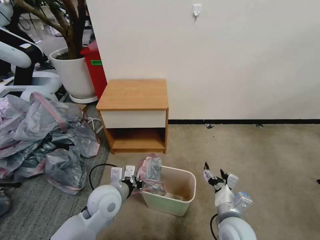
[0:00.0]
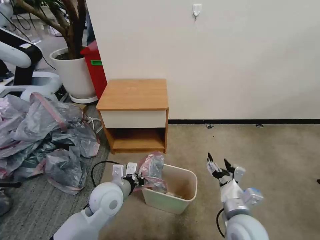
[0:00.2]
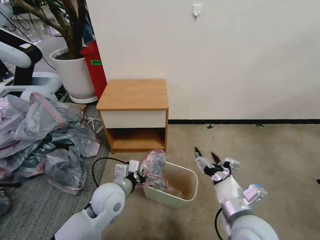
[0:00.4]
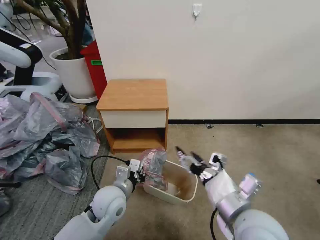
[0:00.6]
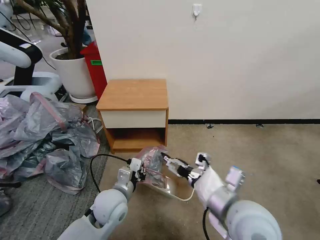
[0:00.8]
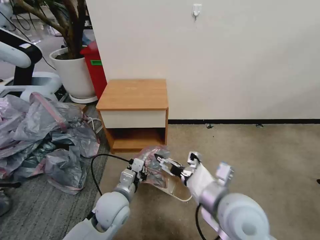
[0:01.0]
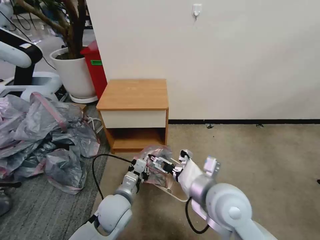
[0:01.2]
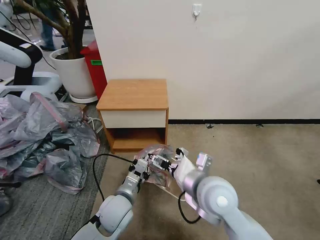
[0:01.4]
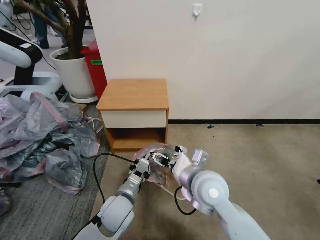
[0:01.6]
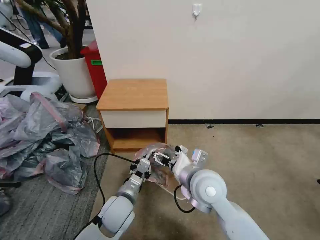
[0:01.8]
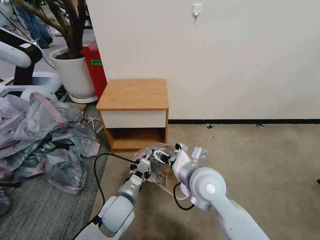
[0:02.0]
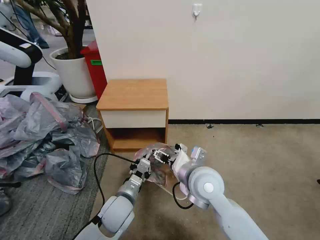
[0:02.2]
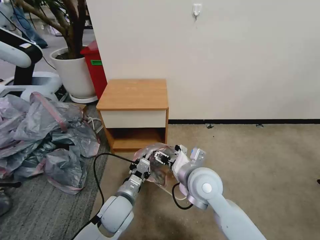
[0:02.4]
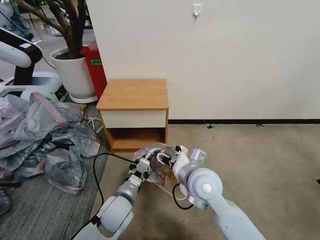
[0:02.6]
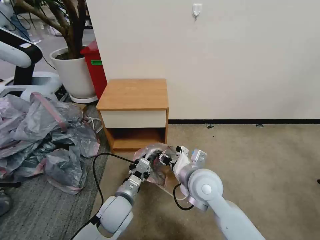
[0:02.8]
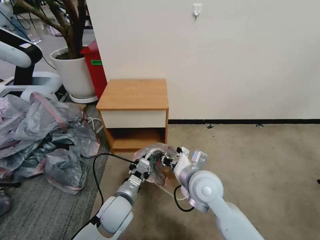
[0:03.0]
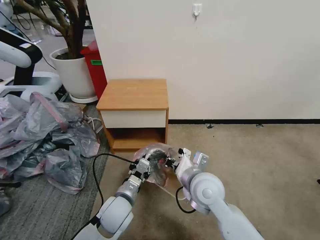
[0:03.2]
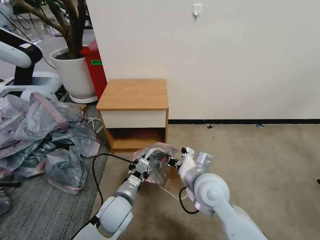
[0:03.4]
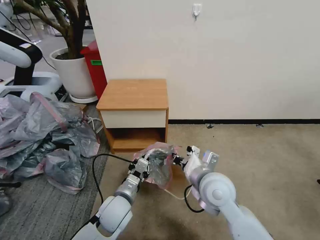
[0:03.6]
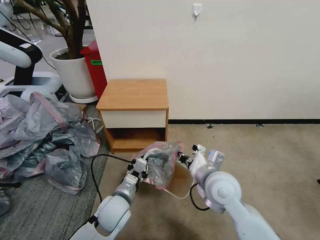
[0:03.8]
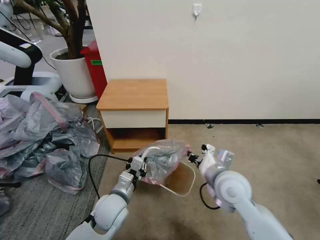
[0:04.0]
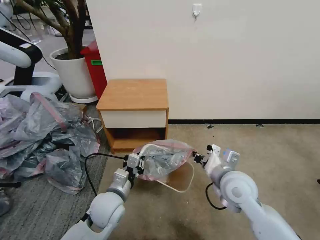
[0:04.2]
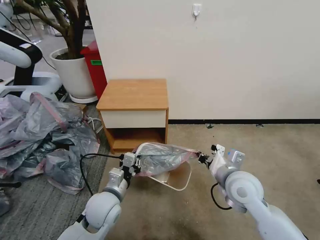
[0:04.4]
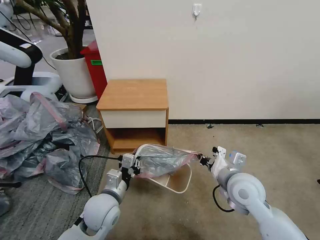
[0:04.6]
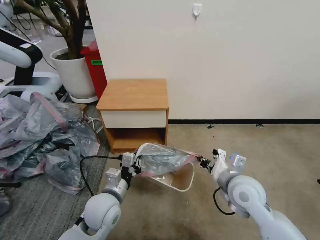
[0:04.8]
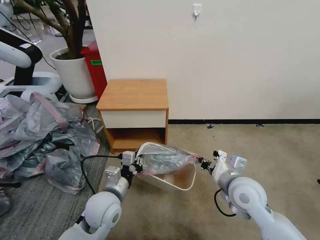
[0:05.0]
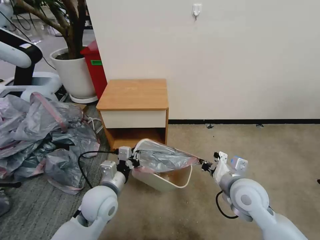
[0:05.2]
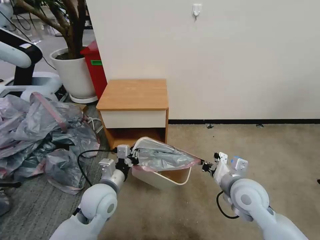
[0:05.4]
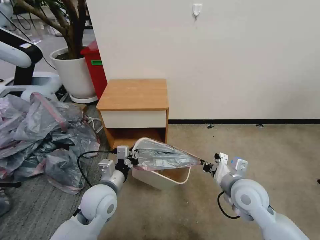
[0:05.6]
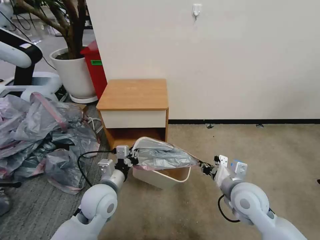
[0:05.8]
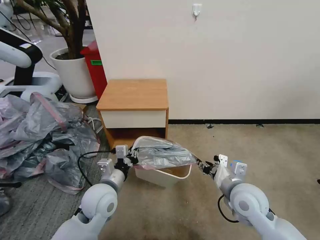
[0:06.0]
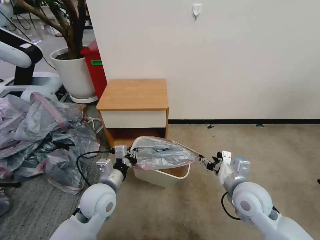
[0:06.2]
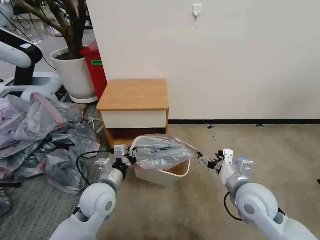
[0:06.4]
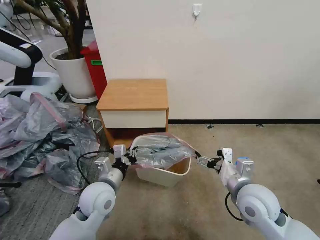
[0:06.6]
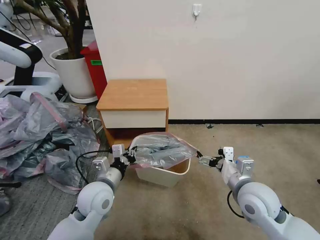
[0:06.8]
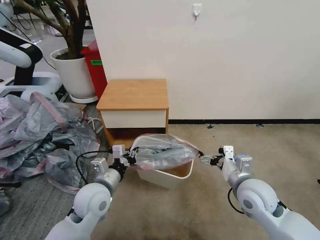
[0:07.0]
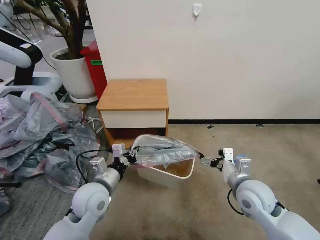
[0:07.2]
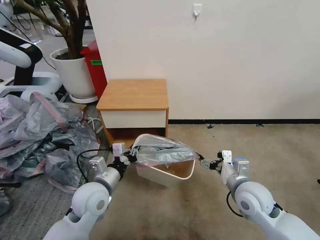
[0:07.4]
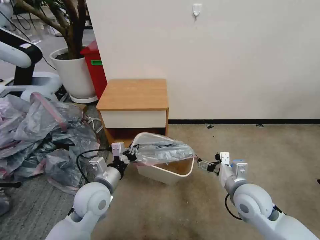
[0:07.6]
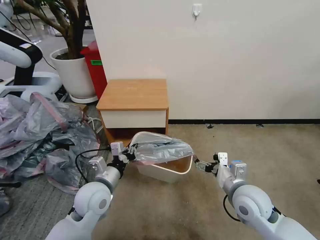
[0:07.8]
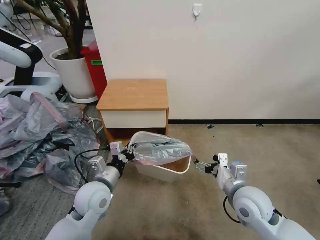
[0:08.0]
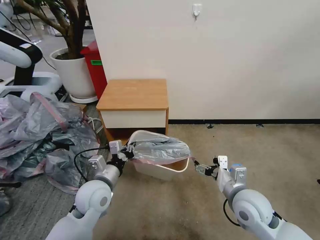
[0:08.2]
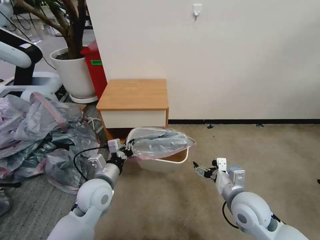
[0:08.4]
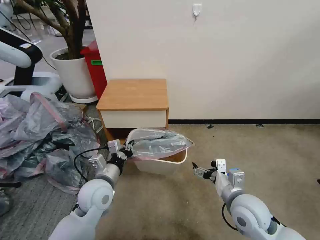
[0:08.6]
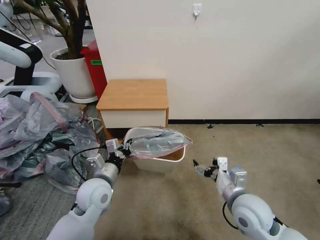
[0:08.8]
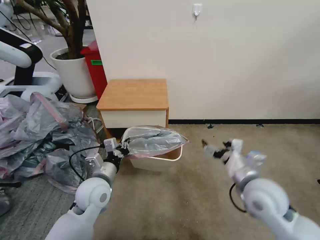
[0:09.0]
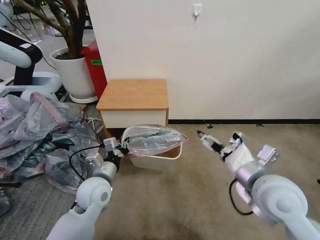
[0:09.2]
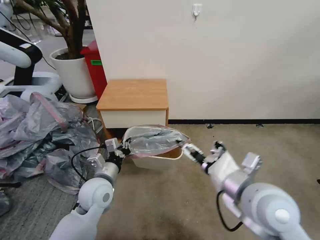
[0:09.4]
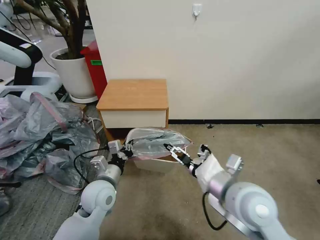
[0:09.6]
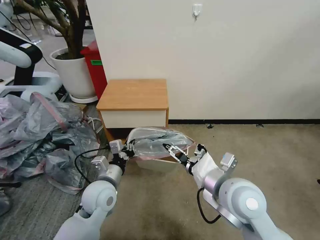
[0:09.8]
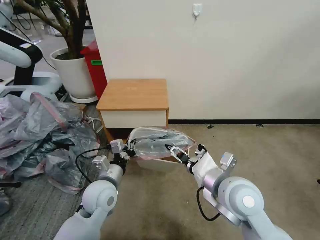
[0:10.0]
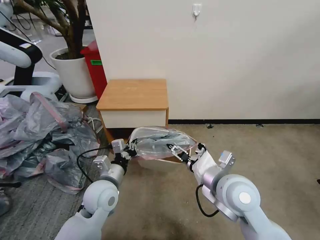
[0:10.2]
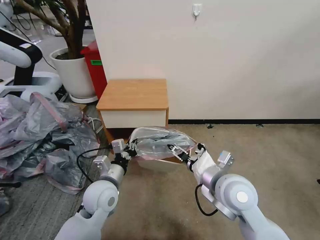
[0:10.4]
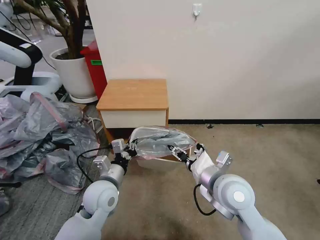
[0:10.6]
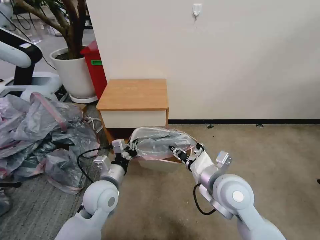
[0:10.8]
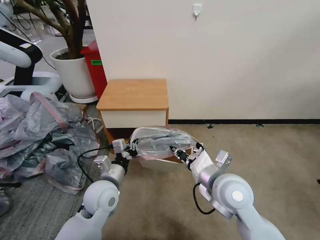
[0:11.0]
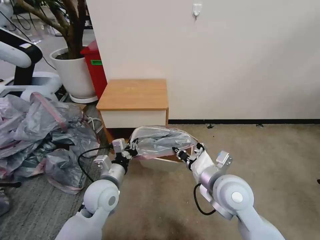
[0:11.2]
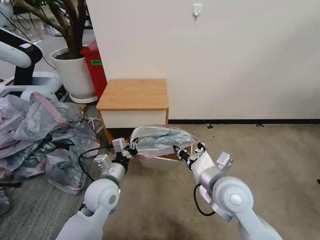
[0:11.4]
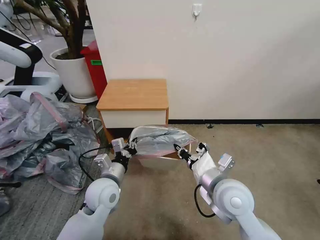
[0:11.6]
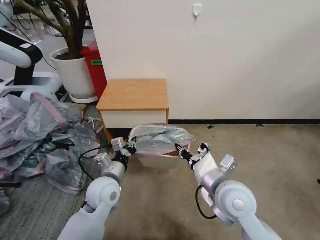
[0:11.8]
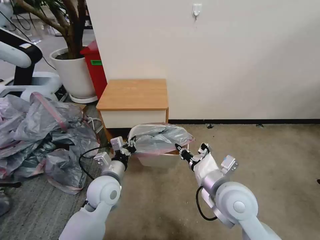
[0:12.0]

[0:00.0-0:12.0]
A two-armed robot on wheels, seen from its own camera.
Task of the whole recording: Pick up the garbage bag from the table and place it over the trash can.
0:00.0 to 0:01.6: The left gripper ends up approximately 5 cm from where it was. Meanwhile the right gripper goes roughly 20 cm upward, to the left and forward.
0:01.6 to 0:03.0: The right gripper closes up.
0:03.0 to 0:04.4: The right gripper heads to the right, covering about 10 cm.
0:04.4 to 0:06.0: The right gripper opens its fingers.
0:06.0 to 0:07.6: The right gripper opens its fingers.
0:07.6 to 0:09.0: The right gripper is displaced upward by some 5 cm.
0:09.0 to 0:10.4: The right gripper heads to the left, covering about 10 cm.
0:10.4 to 0:12.0: The right gripper closes.

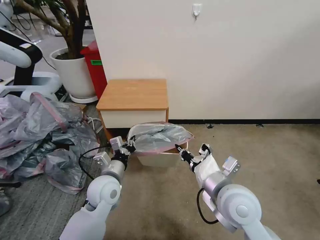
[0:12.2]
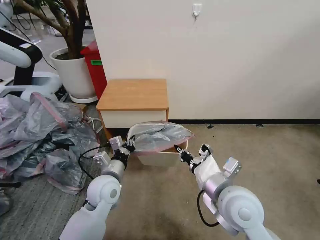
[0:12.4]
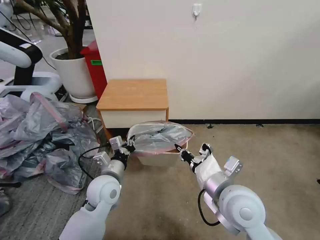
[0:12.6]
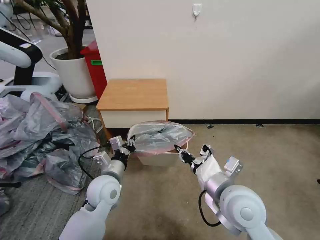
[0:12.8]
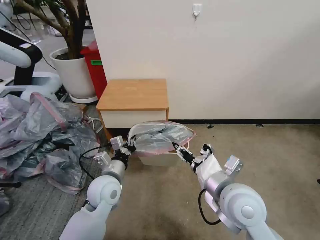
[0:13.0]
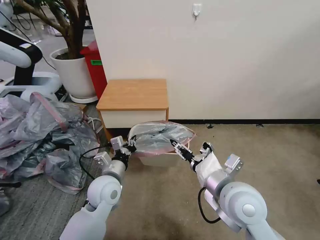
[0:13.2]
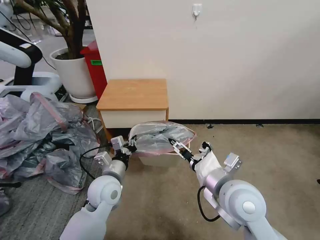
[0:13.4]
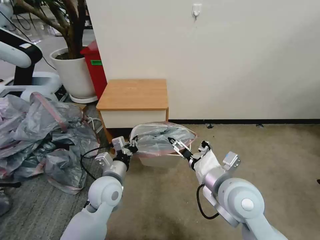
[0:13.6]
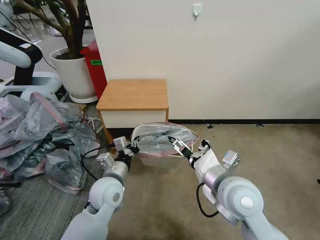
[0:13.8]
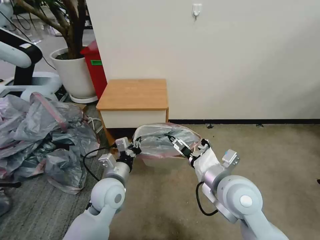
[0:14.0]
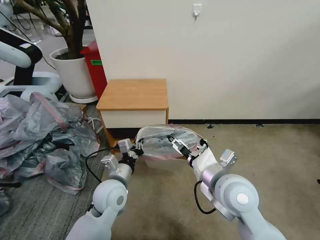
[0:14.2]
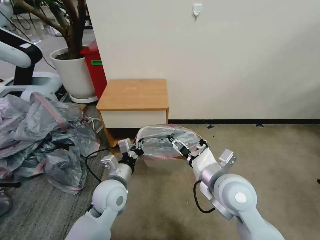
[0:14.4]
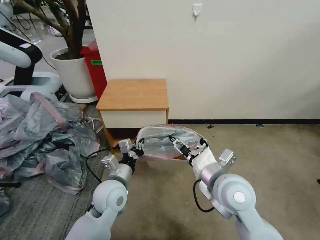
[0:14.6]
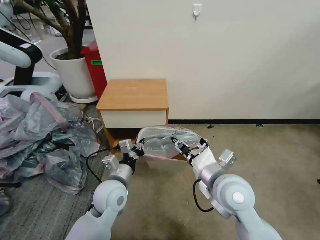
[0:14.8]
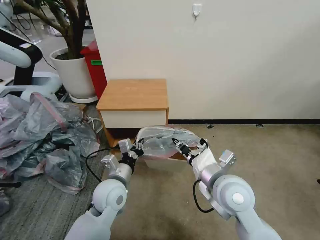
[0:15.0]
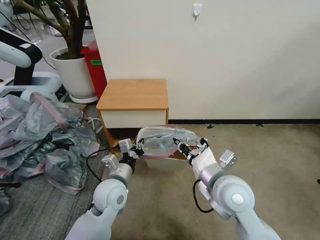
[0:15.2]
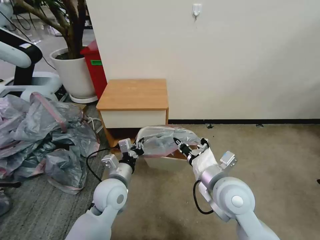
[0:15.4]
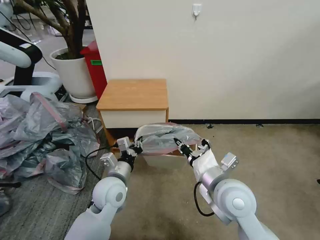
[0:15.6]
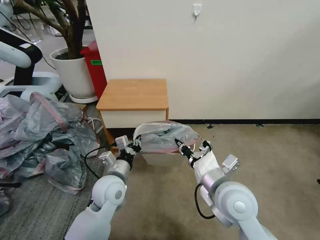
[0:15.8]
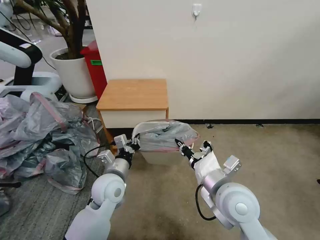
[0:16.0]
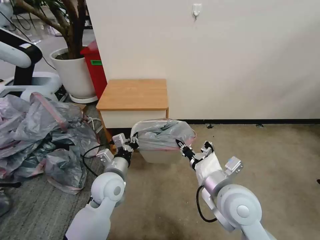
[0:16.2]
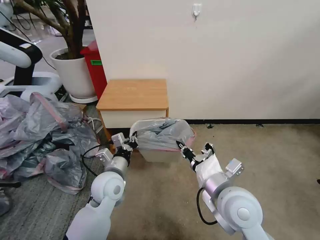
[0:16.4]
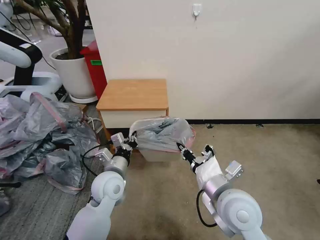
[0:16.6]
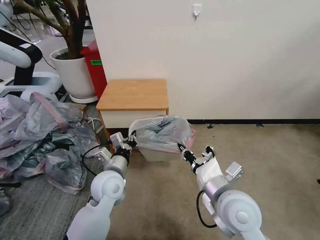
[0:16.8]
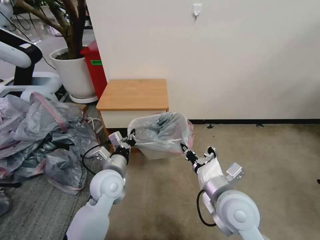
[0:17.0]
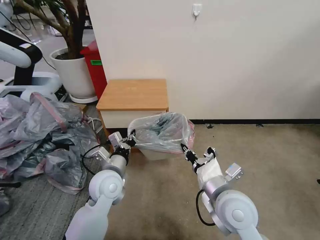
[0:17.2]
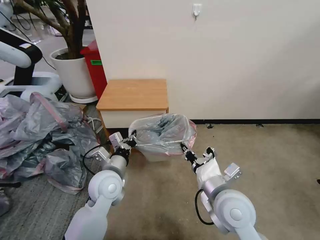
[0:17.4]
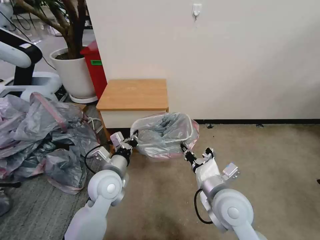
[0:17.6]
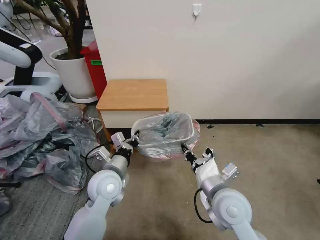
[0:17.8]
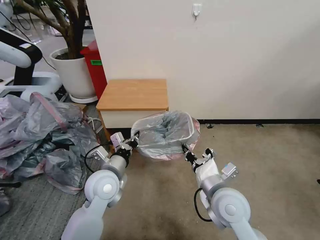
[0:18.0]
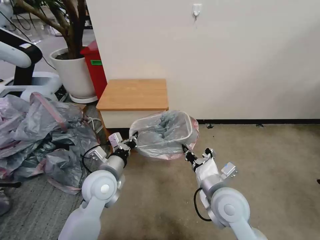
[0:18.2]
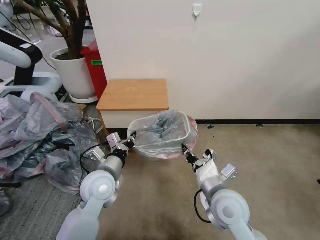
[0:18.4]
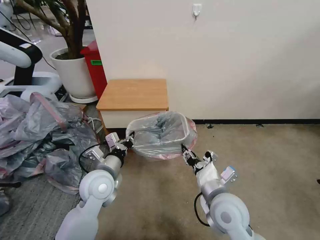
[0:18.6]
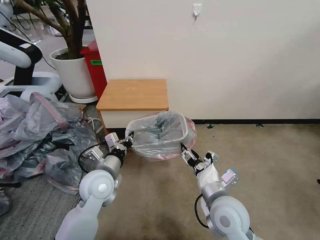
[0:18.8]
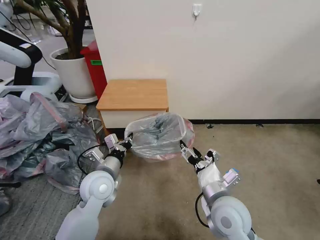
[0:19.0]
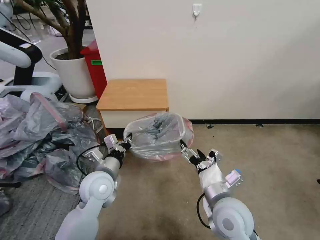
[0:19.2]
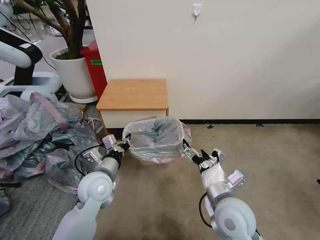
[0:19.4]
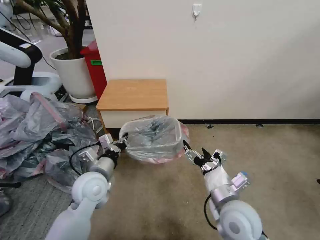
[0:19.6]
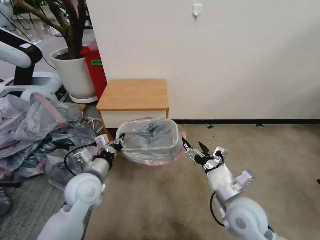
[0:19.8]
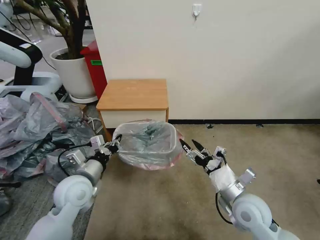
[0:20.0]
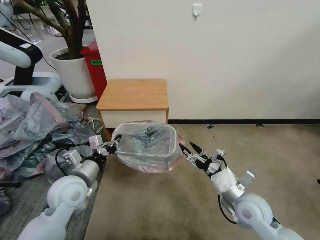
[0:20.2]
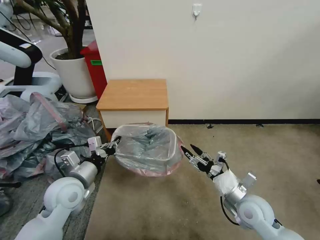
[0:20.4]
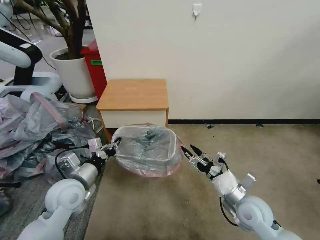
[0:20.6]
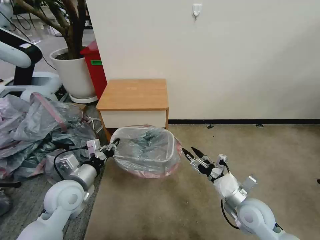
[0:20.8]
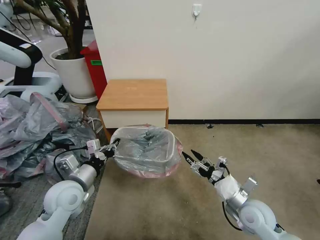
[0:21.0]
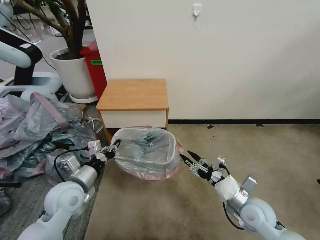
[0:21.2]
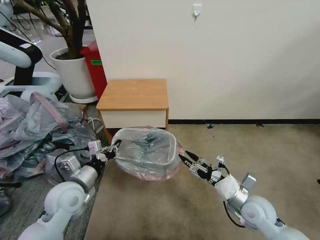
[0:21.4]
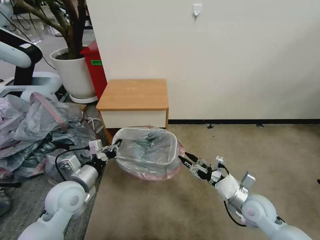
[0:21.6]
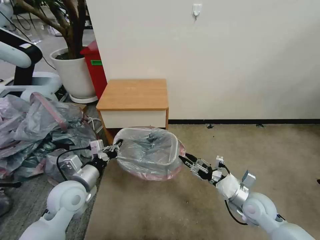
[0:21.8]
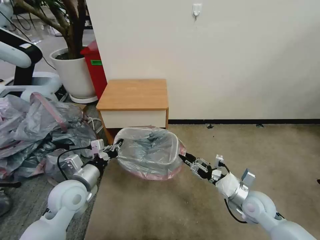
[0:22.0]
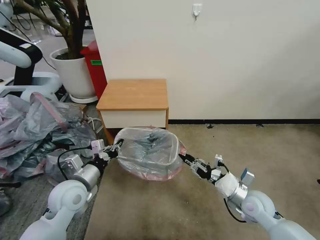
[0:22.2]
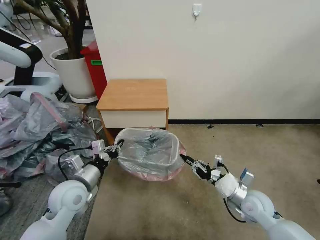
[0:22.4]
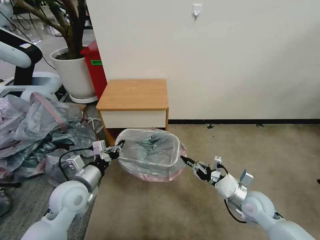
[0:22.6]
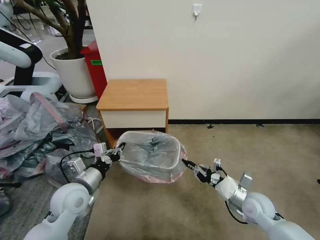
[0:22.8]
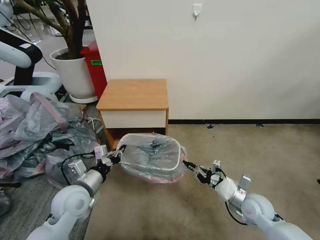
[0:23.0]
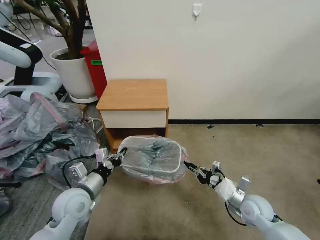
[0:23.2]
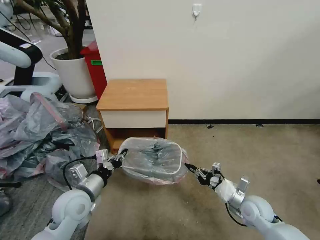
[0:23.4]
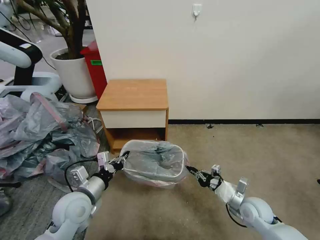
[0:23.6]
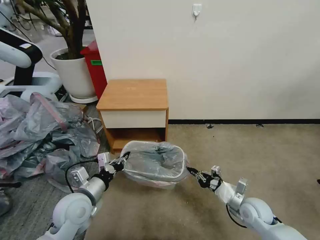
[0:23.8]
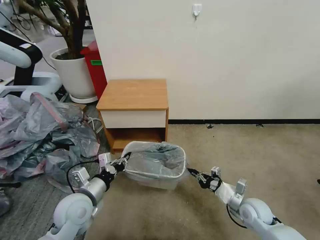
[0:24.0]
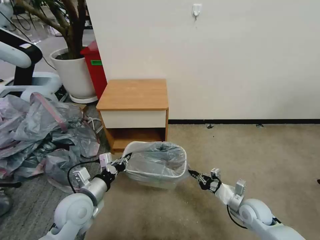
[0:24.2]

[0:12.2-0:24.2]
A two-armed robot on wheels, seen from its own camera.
Task of the whole recording: Pick up the garbage bag from the table and place it over the trash can.
0:12.2 to 0:13.8: The right gripper opens up.
0:13.8 to 0:15.2: The right gripper closes up.
0:15.2 to 0:18.2: The grippers make only small movements.
0:18.2 to 0:19.8: The right gripper opens up.
0:19.8 to 0:21.2: The left gripper heads to the left, covering roughly 5 cm. The right gripper heads to the right and downward, covering roughly 10 cm.
0:21.2 to 0:22.6: The right gripper closes.
0:22.6 to 0:24.2: The right gripper moves downward, roughly 5 cm.
